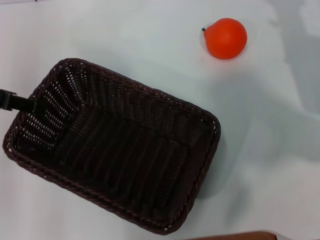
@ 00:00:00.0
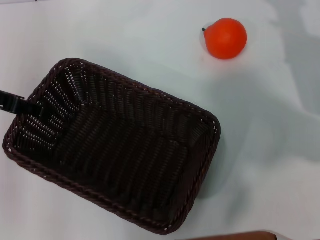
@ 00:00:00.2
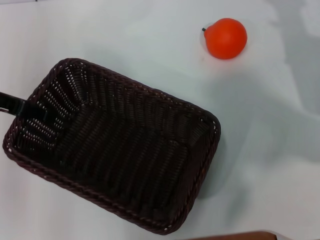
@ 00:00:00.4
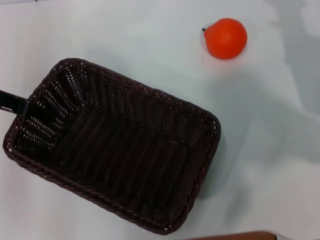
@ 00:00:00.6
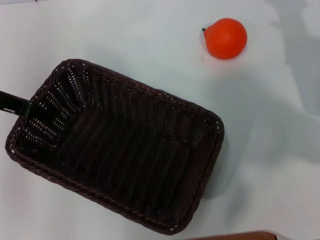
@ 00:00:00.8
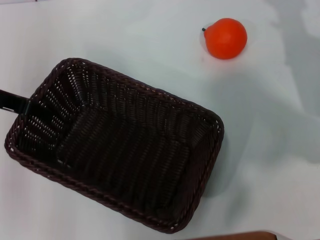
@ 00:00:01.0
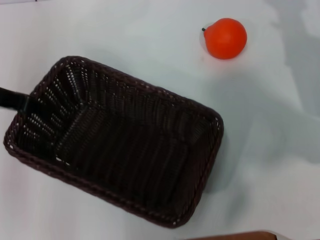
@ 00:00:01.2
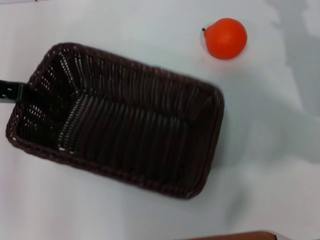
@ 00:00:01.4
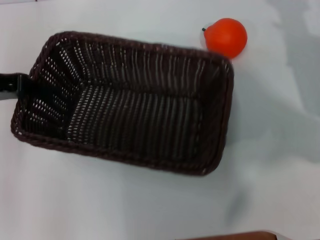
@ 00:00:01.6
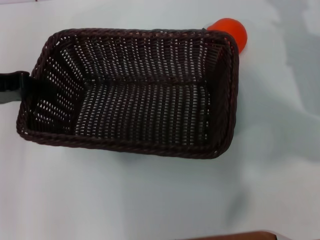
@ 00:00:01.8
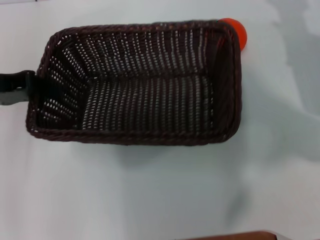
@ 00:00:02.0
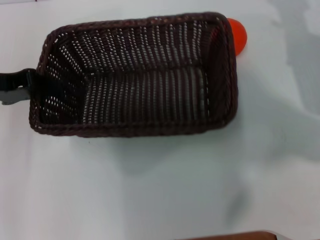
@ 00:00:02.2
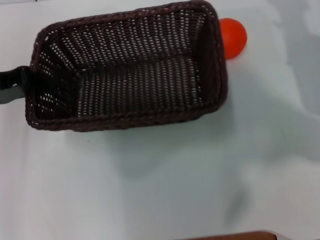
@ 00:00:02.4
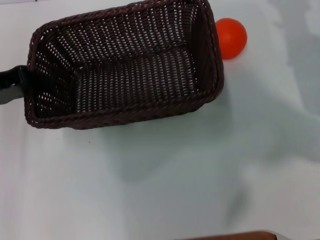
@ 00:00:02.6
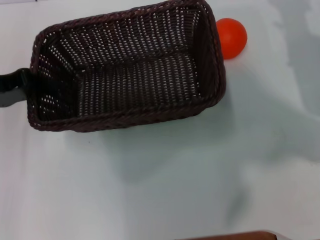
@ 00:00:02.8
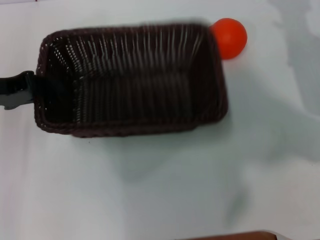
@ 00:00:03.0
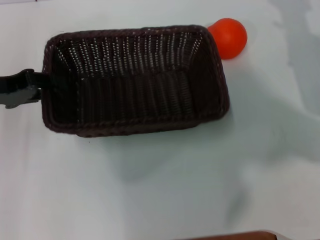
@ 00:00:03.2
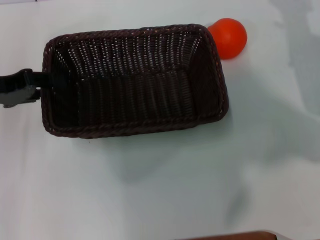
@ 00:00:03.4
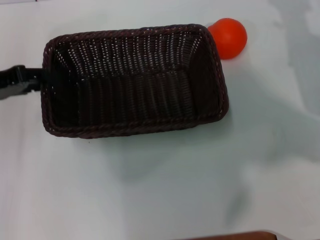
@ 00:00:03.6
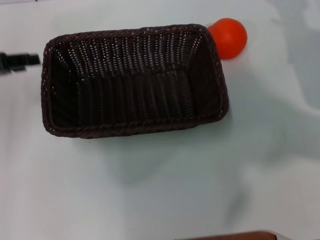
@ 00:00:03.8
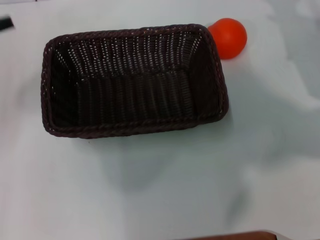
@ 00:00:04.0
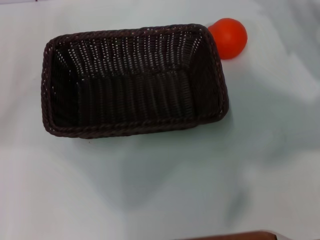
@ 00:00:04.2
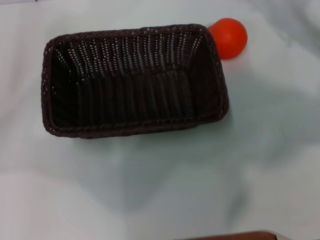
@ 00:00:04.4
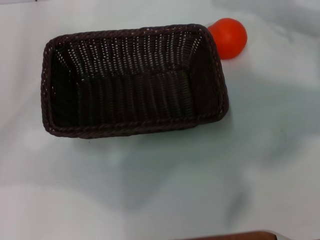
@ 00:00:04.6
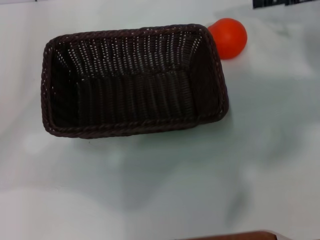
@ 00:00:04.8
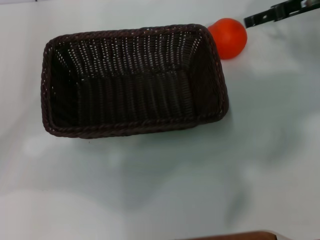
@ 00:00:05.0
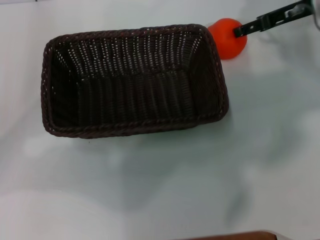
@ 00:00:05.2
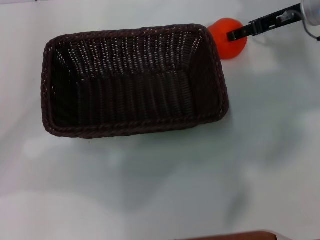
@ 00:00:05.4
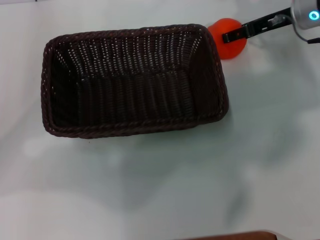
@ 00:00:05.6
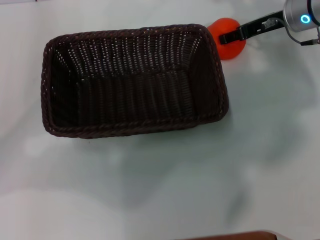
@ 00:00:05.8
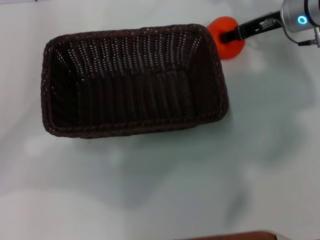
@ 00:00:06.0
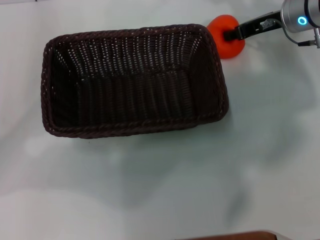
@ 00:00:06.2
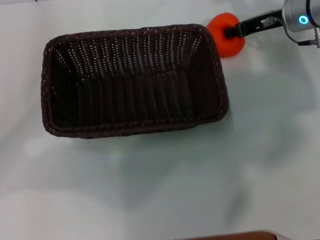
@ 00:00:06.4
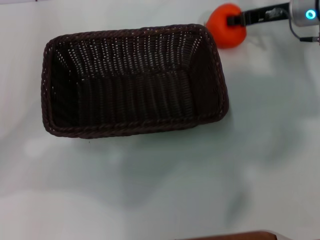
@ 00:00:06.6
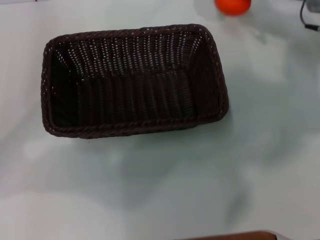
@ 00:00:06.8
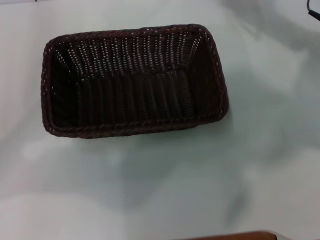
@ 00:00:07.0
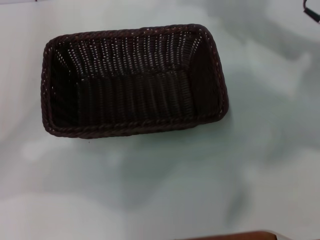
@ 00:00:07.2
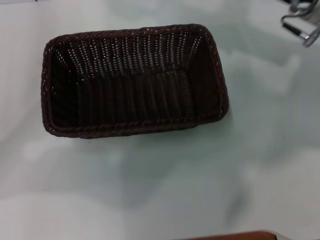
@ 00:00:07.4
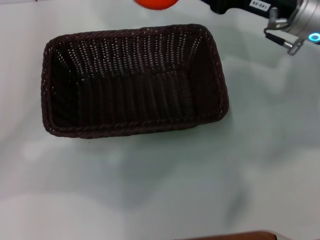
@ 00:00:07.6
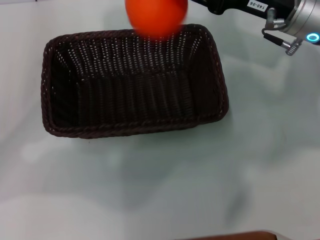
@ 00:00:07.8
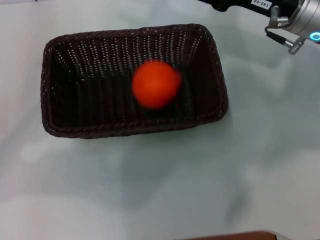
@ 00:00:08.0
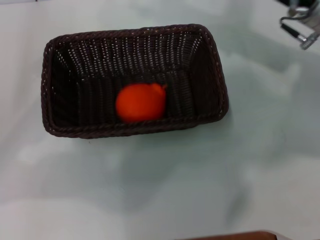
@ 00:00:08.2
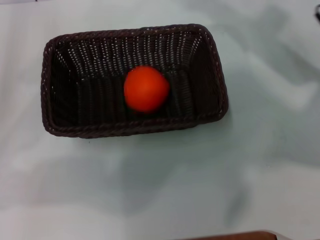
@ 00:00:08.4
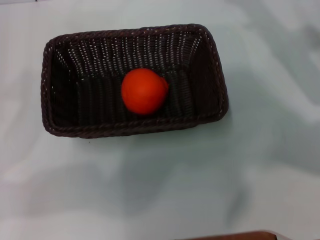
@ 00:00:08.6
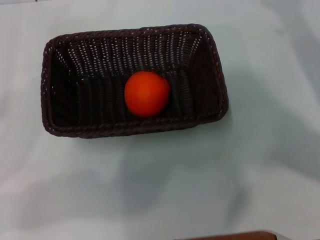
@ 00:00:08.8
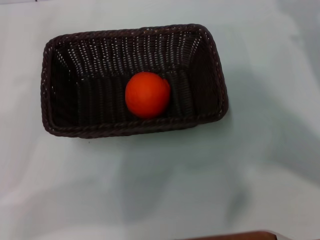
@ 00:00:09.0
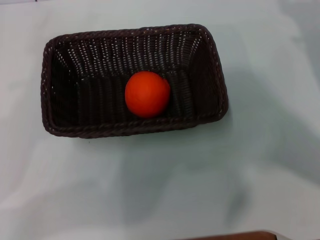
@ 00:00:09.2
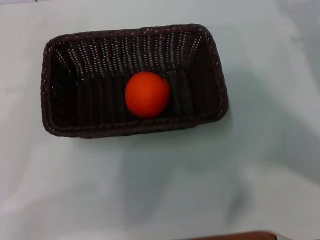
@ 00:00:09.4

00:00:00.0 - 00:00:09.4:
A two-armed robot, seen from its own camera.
Task of the whole recording: the left gripper pick up the black basket and place it horizontally in the middle of the table, the right gripper pick up the orange and place it into the black basket.
Step, 00:00:01.4 - 00:00:03.8: Place the dark basket in the center of view with the left gripper.
Step, 00:00:04.0 - 00:00:06.6: Pick up the orange with the right gripper.
Step, 00:00:06.8 - 00:00:08.0: Place the orange into the dark basket with the right gripper.
00:00:00.0 - 00:00:01.6: The left gripper closes up.
00:00:01.6 - 00:00:03.2: The grippers move only a little.
00:00:03.2 - 00:00:04.8: The right gripper travels upward and forward by roughly 15 cm; the left gripper moves approximately 5 cm, and opens up.
00:00:04.8 - 00:00:06.2: The right gripper goes about 10 cm to the left and downward, and closes its fingers.
00:00:06.2 - 00:00:07.8: The right gripper moves backward, about 10 cm.
00:00:07.8 - 00:00:09.4: The right gripper moves to the right, backward and downward, some 15 cm, and opens; the left gripper shifts about 10 cm backward and to the left.
